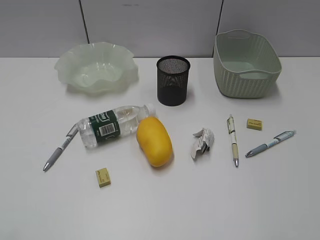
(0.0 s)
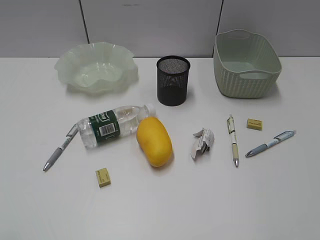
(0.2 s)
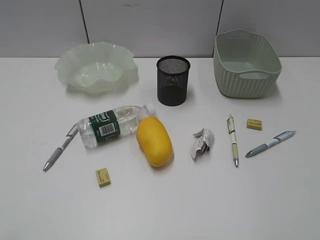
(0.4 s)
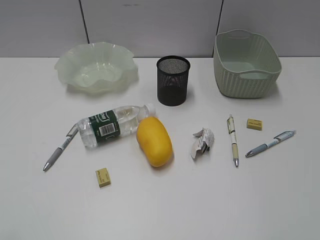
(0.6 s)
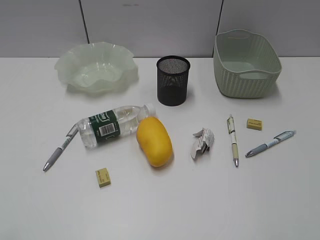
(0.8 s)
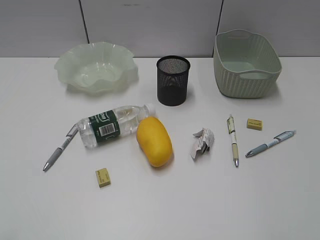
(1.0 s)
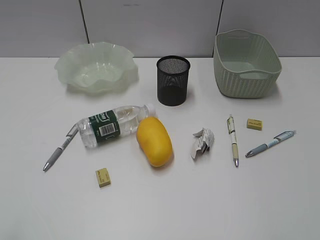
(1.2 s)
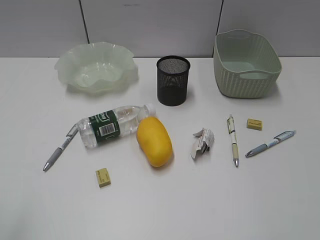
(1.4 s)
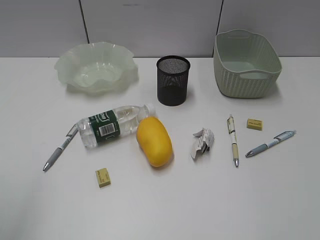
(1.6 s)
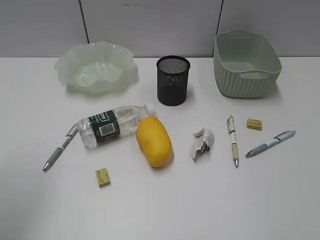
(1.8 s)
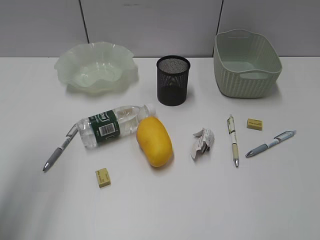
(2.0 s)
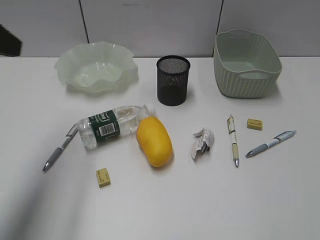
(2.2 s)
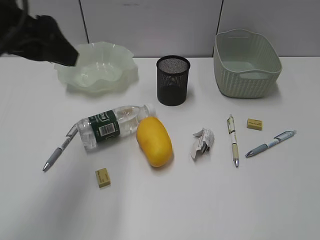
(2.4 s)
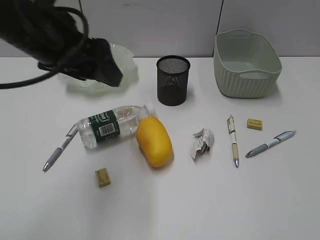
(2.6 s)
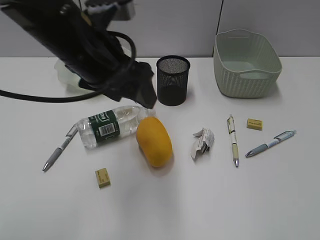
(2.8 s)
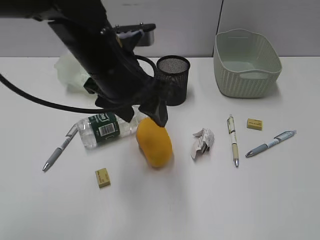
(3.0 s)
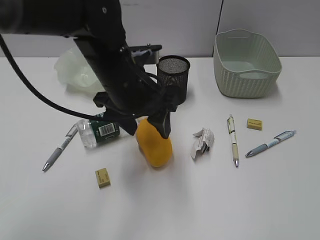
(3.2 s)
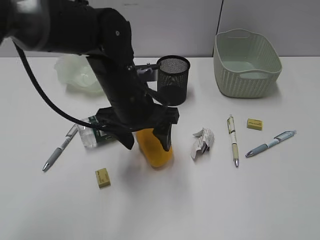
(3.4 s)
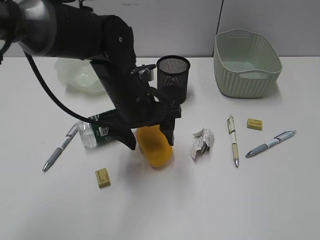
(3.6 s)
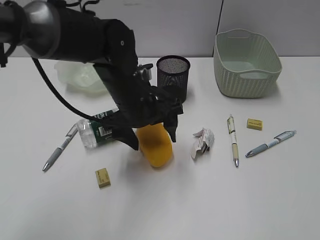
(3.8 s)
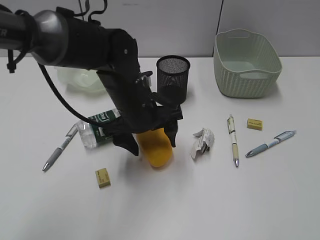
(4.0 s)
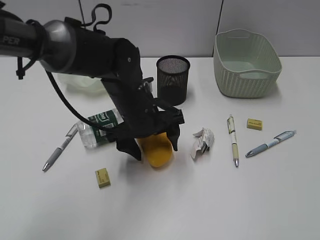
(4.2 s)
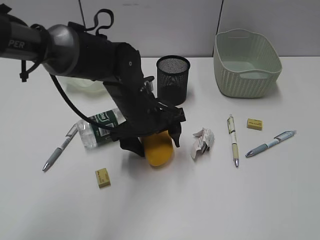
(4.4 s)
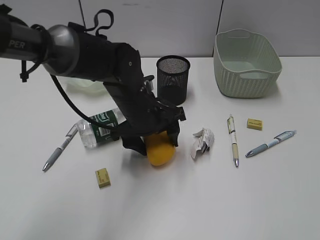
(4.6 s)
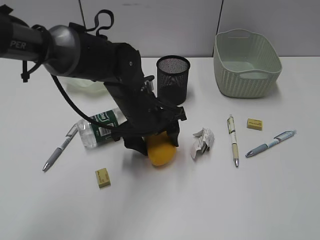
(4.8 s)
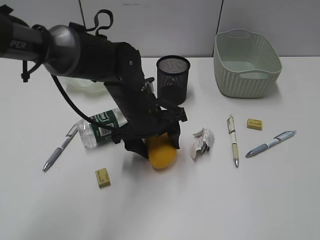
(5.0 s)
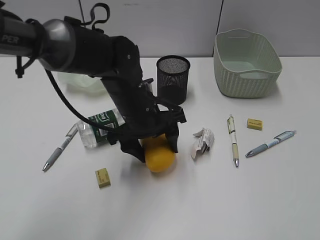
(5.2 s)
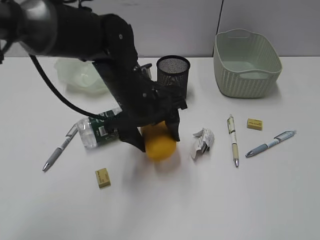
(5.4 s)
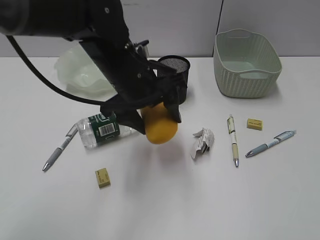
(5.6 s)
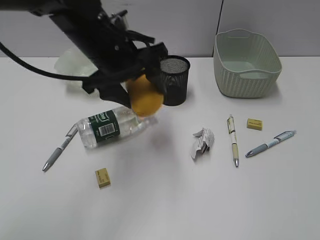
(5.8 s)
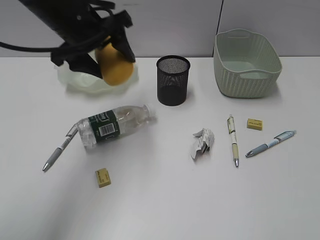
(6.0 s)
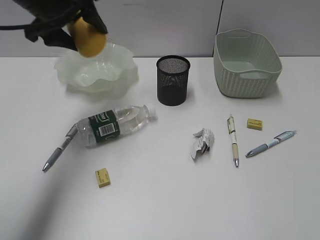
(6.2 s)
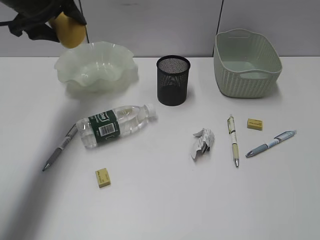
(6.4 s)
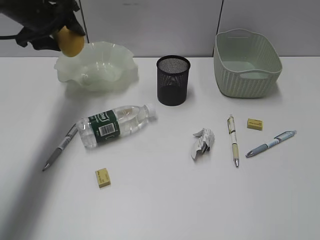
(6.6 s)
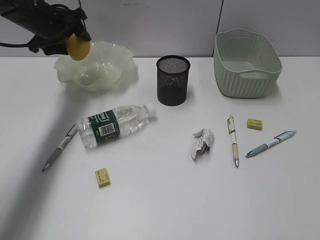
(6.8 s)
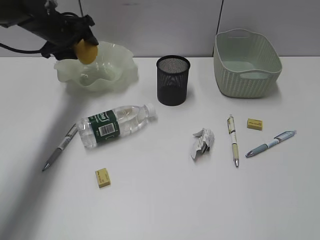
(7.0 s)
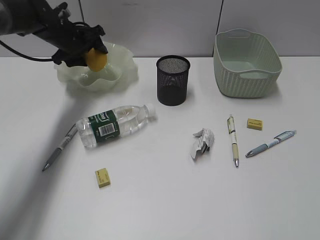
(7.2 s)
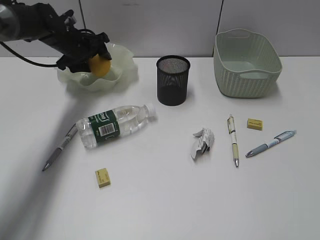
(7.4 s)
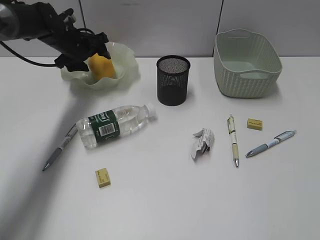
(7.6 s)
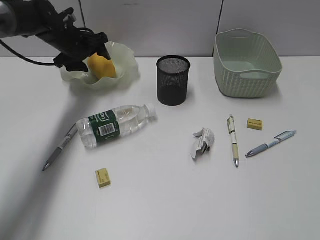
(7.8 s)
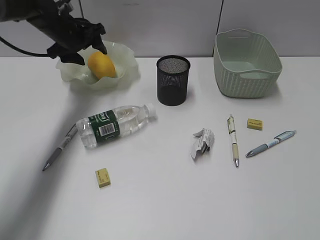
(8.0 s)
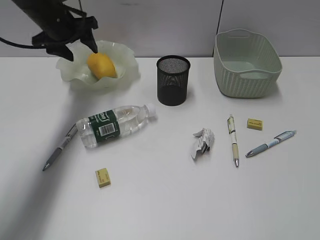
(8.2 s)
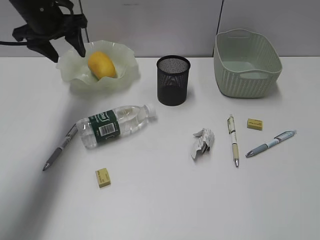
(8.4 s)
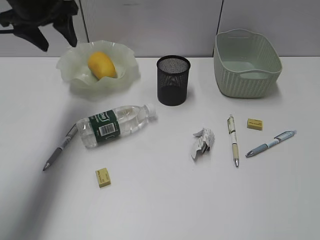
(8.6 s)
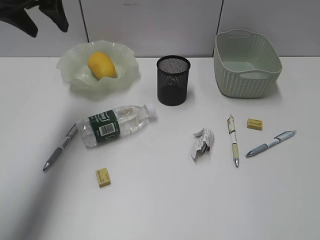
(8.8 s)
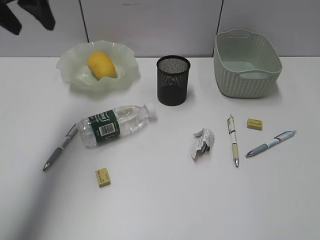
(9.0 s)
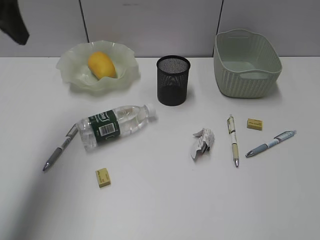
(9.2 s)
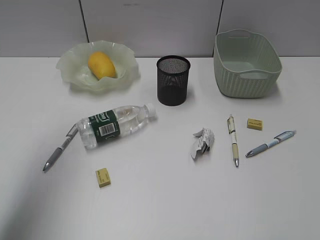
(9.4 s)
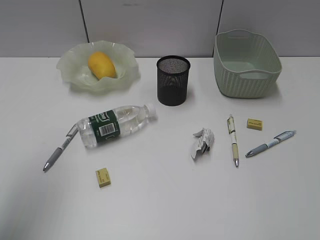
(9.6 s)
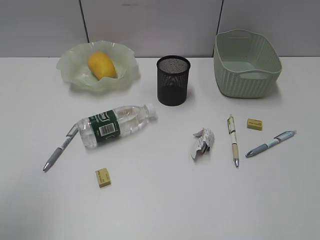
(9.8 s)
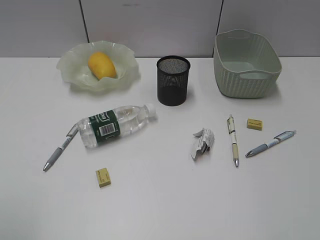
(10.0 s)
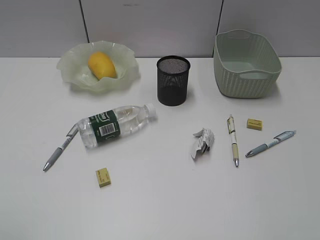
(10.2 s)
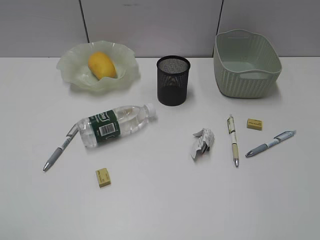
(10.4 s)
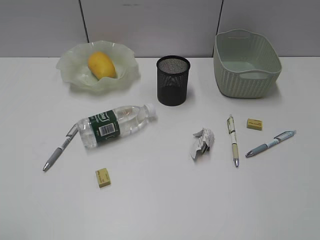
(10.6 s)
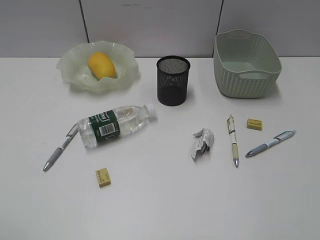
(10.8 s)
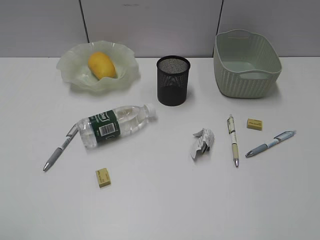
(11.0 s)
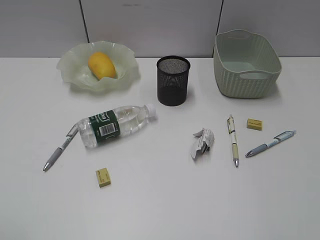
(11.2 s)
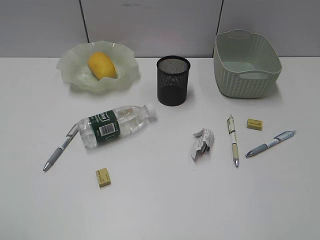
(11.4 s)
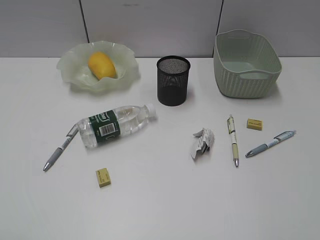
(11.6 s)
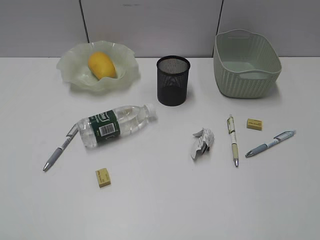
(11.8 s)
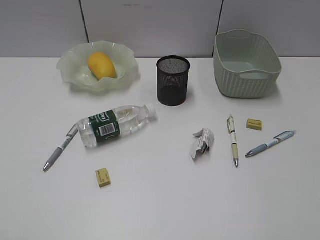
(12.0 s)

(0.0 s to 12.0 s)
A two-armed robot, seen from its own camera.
Step, 2.2 s - 4.6 s: Grasp the mango with left gripper.
Step, 4.8 s - 8.0 s: Place the mango in the plate with left gripper.
1.6 s - 3.0 s: The left gripper is displaced to the right and forward by about 30 cm.
3.0 s - 4.4 s: The left gripper goes approximately 10 cm downward.
4.4 s - 6.0 s: The left gripper moves upward and to the left, some 15 cm.
6.0 s - 7.6 s: The left gripper moves forward, downward and to the left, roughly 20 cm.
7.6 s - 9.0 s: The left gripper goes some 25 cm upward and backward.
9.0 s - 10.4 s: The left gripper is displaced backward by some 35 cm.

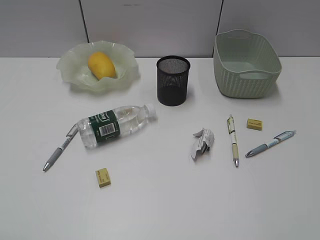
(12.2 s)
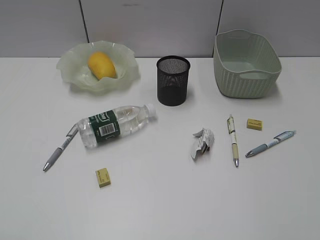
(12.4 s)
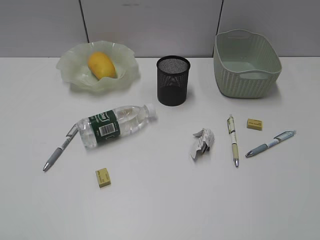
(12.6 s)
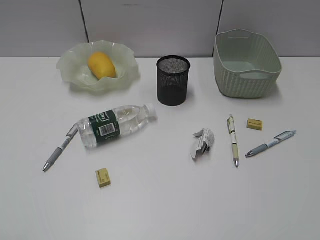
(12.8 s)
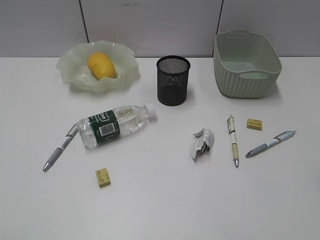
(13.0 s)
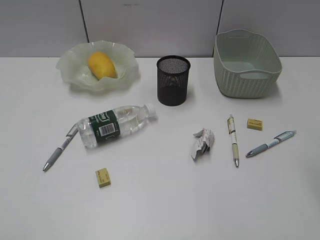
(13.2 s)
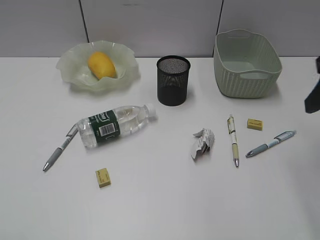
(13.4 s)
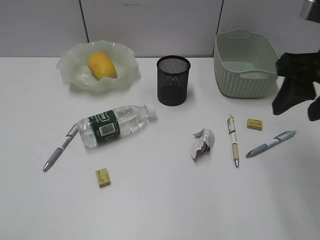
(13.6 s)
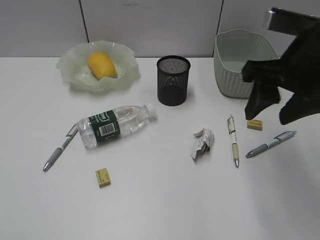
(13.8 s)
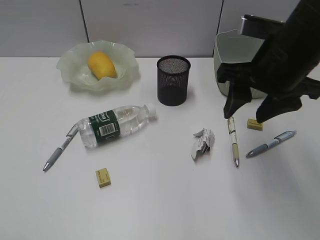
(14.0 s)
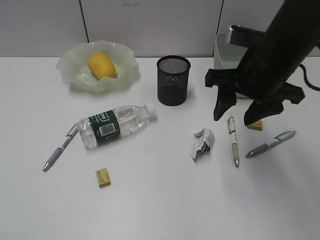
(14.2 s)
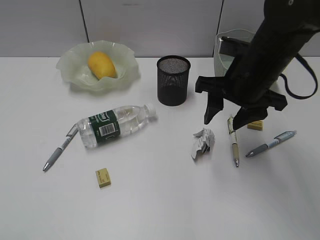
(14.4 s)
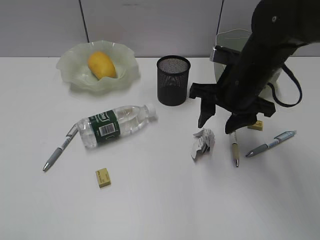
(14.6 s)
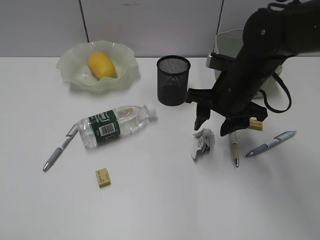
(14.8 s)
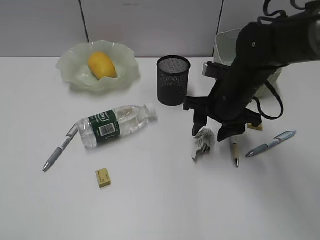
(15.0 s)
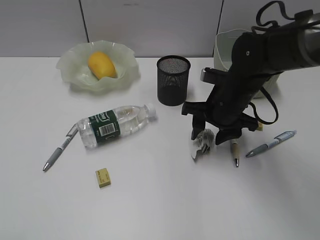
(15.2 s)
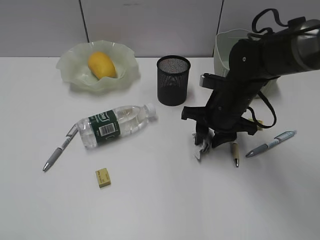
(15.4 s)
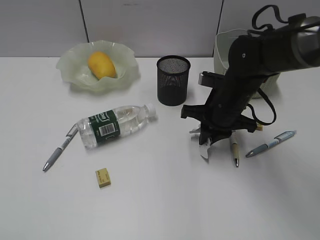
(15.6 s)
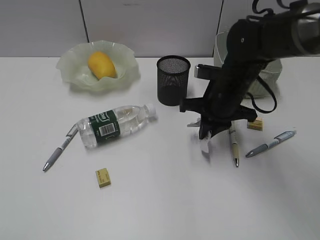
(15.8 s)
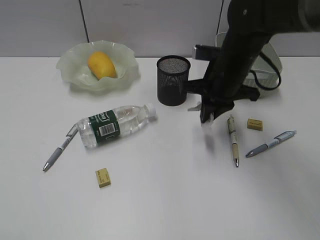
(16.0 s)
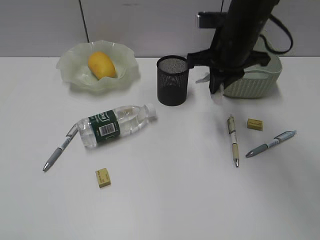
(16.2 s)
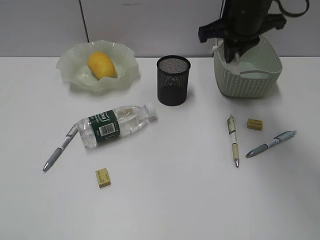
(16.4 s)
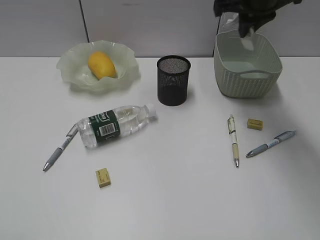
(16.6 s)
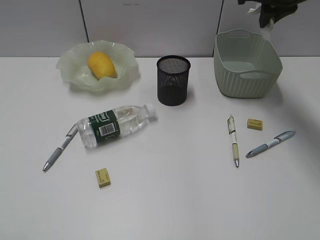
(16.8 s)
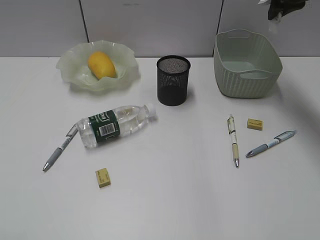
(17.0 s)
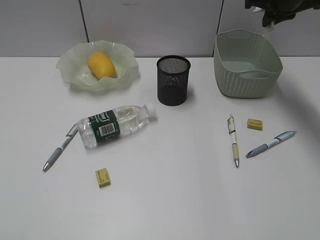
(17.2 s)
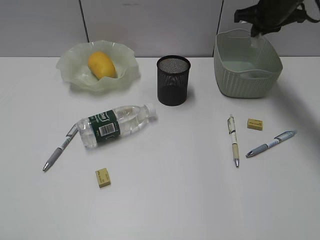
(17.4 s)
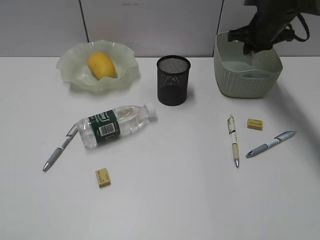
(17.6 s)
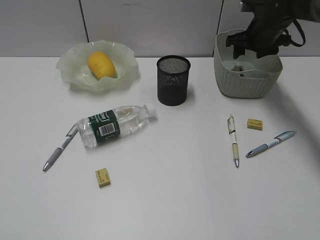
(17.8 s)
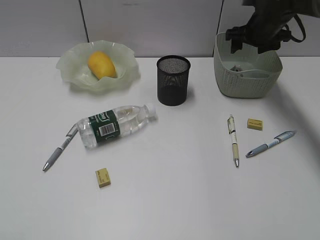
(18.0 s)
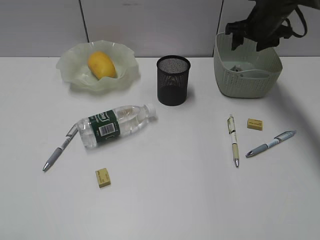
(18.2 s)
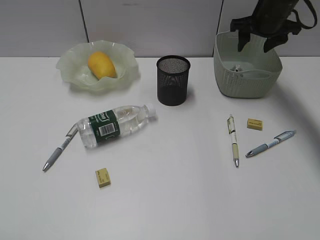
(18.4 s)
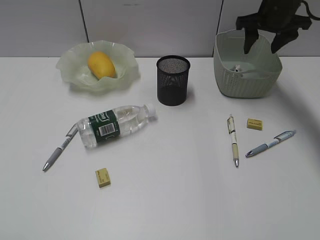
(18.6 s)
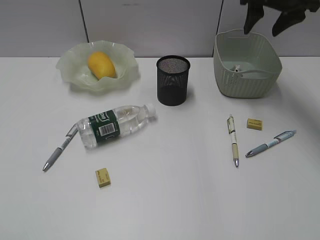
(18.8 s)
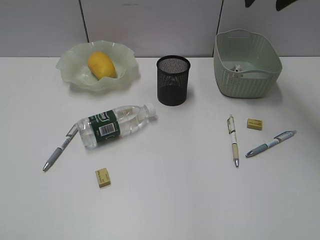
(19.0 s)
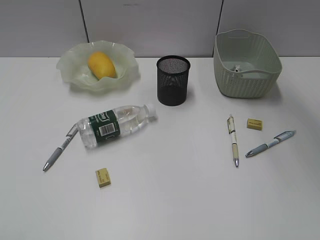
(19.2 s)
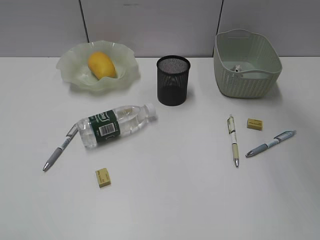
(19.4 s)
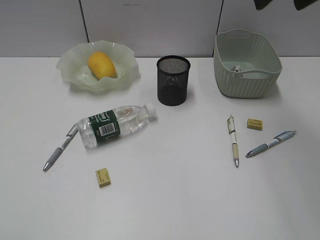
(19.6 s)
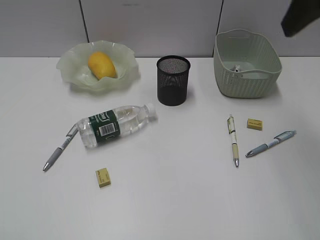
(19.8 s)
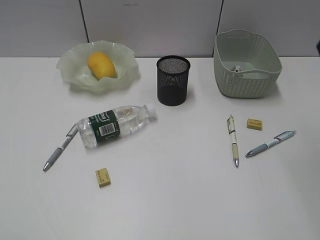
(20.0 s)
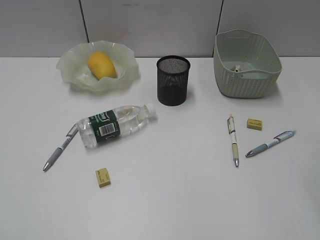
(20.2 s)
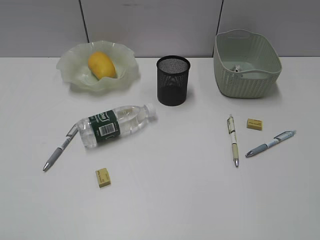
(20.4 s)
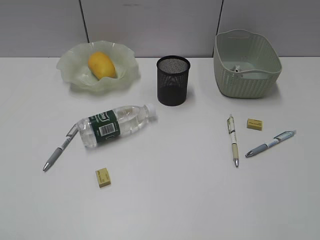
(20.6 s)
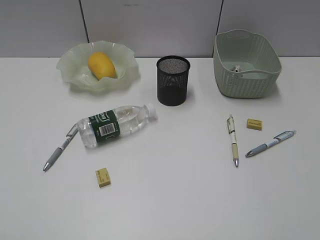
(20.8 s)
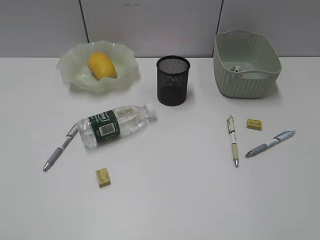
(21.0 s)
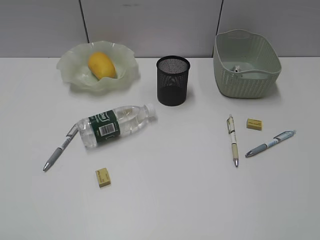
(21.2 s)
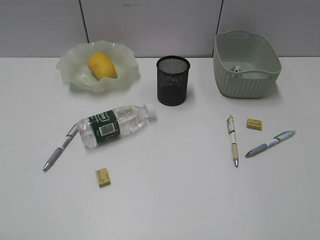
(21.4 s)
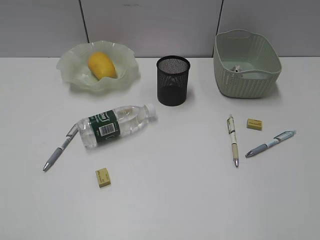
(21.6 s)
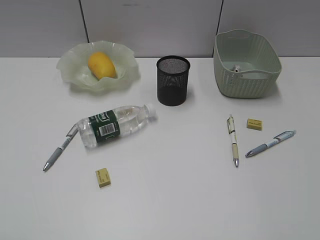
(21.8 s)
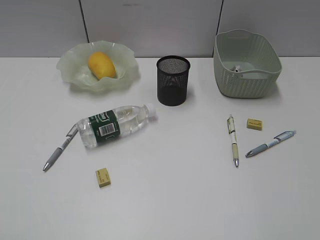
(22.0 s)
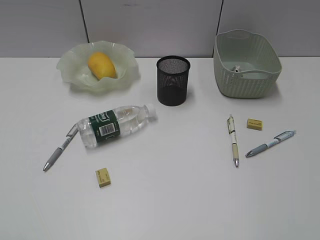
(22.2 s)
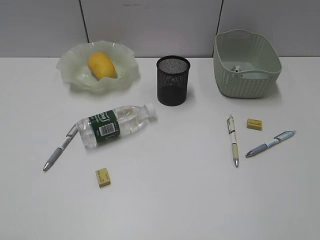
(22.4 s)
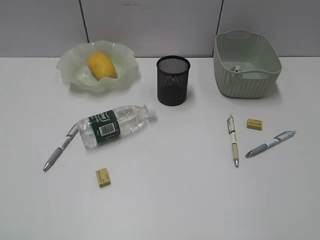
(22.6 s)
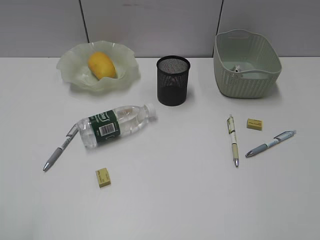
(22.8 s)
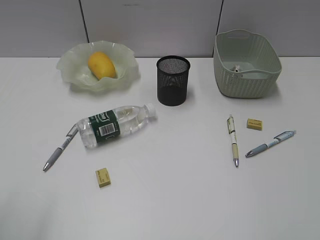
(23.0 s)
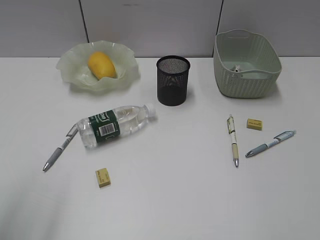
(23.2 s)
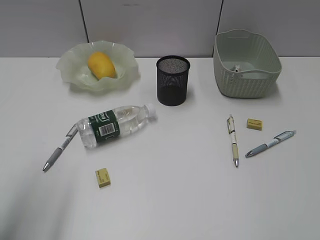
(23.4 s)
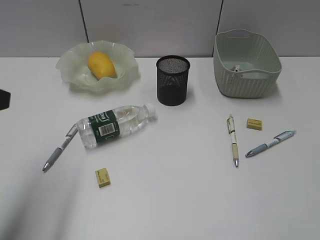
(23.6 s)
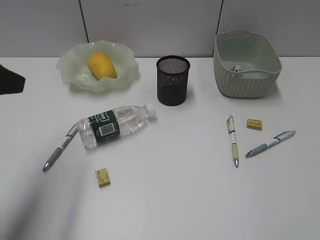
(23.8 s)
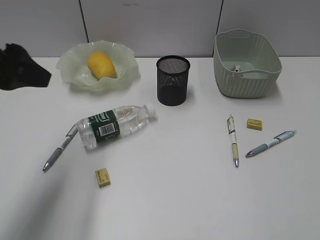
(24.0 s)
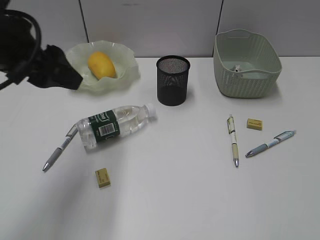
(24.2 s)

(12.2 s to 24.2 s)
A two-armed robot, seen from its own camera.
Step, 12.2 s - 15.6 s: Grasp the waste paper with right gripper.
Step, 15.8 s - 17.8 s: Place the waste paper in the basket with right gripper.
12.2 s - 13.8 s: The right gripper is displaced forward and to the left by some 30 cm.
13.8 s - 15.2 s: The right gripper heads downward and forward, covering approximately 15 cm.
15.2 s - 16.6 s: The right gripper shifts some 20 cm upward and forward, and closes its fingers.
16.6 s - 18.2 s: The right gripper moves downward, forward and to the right, about 15 cm, and opens.
18.2 s - 19.8 s: The right gripper moves backward and upward, some 35 cm.
19.8 s - 21.2 s: The right gripper shifts some 30 cm backward and to the right.
22.6 s - 24.2 s: The left gripper goes roughly 30 cm forward and to the right.
